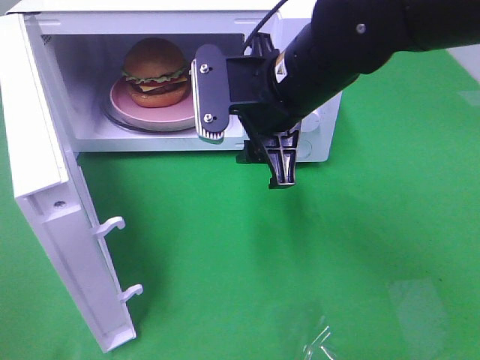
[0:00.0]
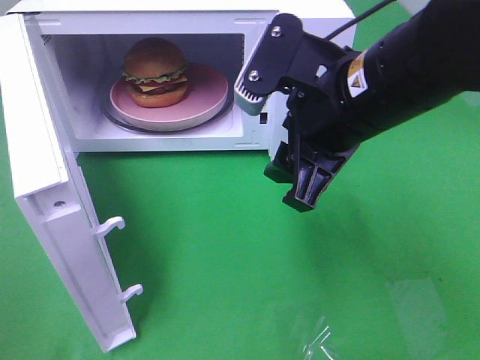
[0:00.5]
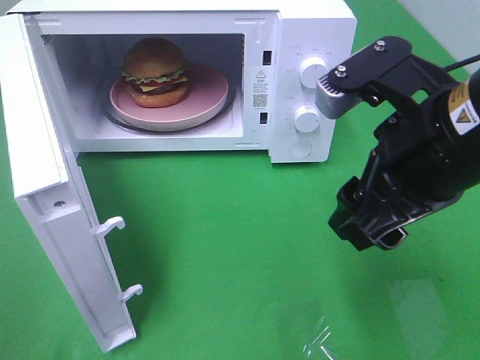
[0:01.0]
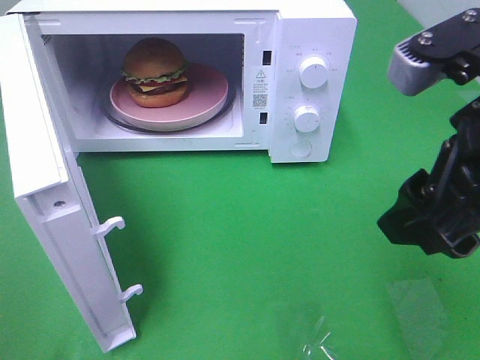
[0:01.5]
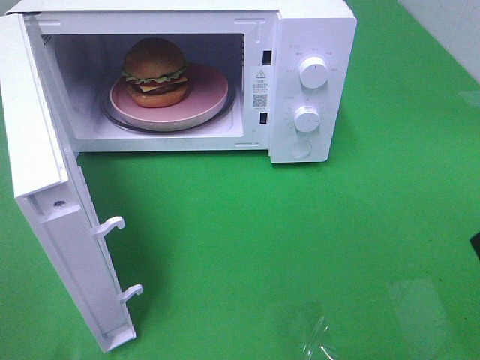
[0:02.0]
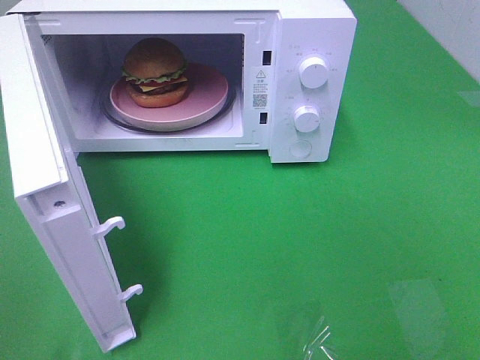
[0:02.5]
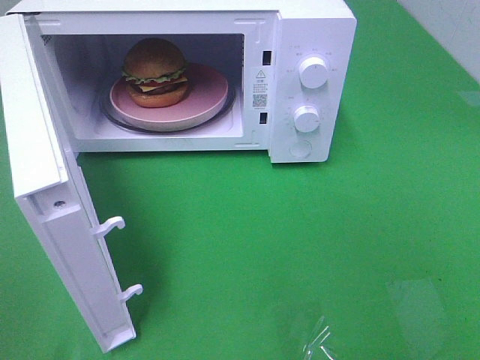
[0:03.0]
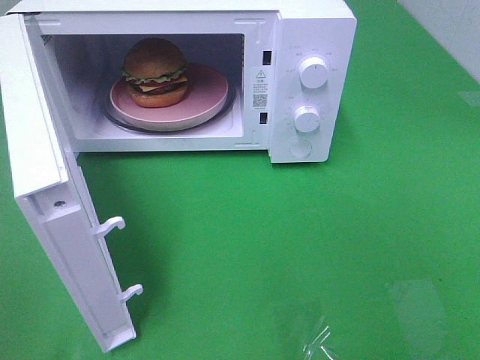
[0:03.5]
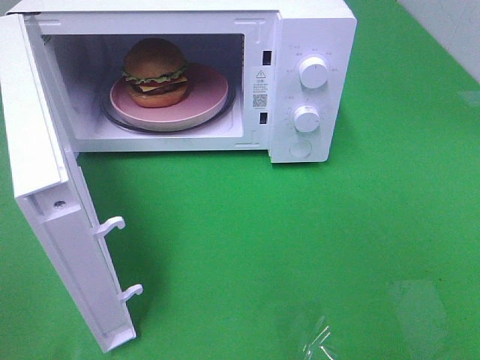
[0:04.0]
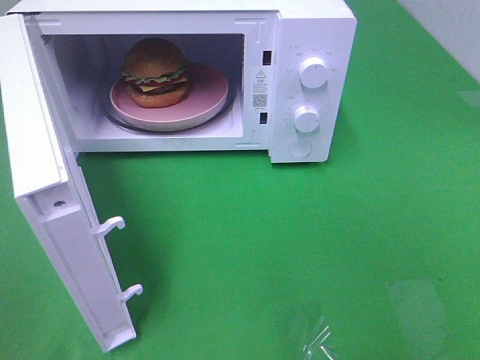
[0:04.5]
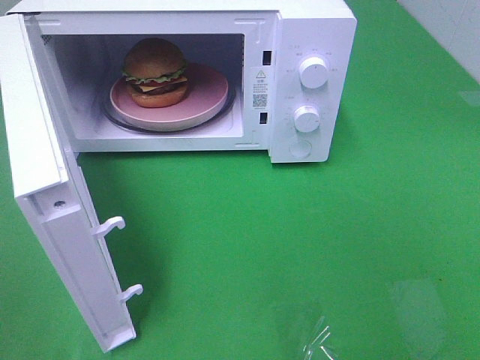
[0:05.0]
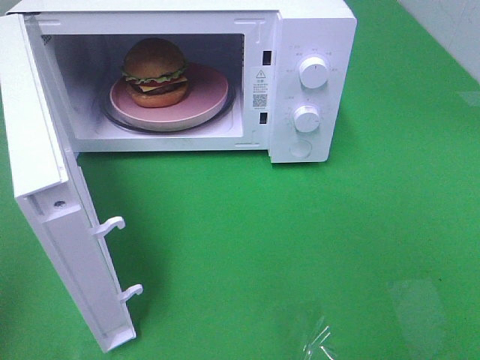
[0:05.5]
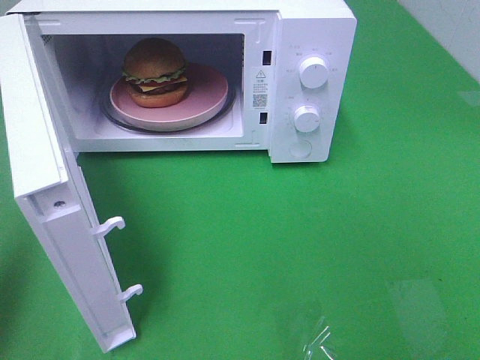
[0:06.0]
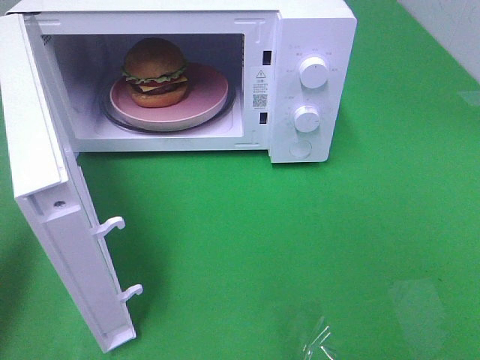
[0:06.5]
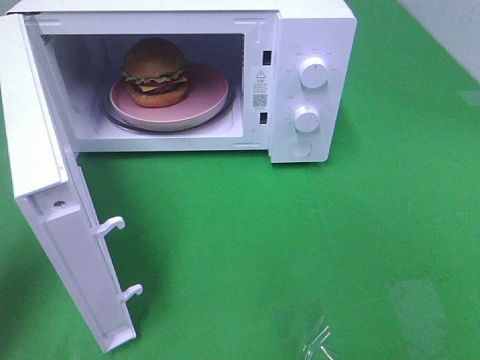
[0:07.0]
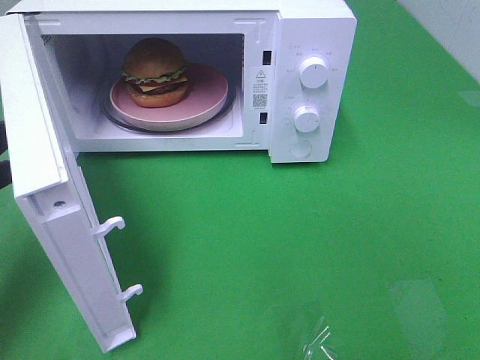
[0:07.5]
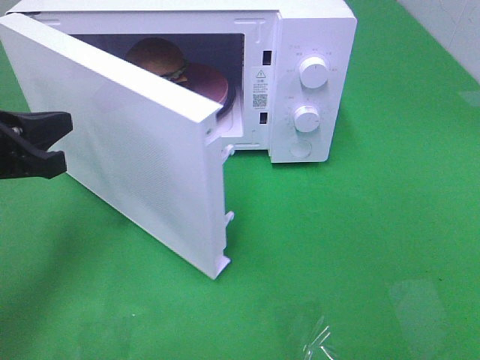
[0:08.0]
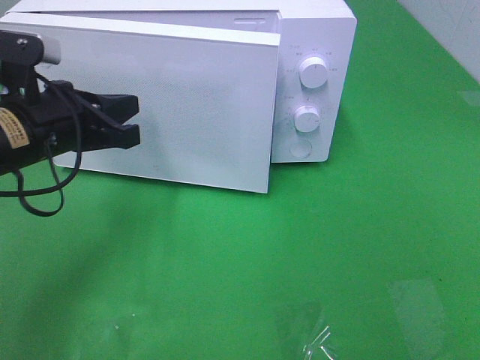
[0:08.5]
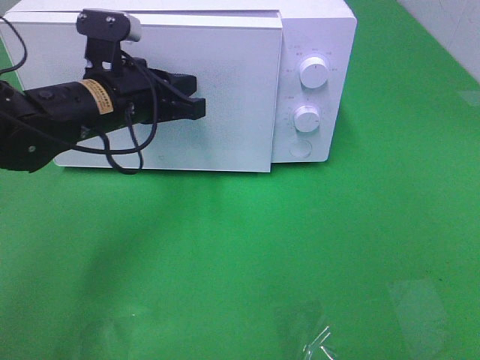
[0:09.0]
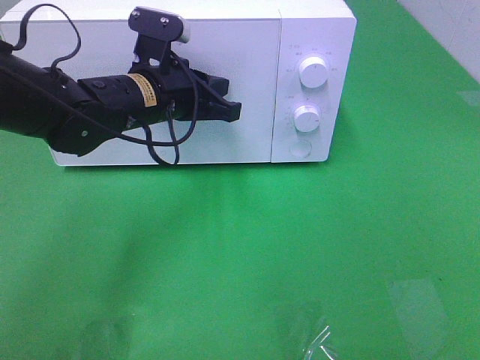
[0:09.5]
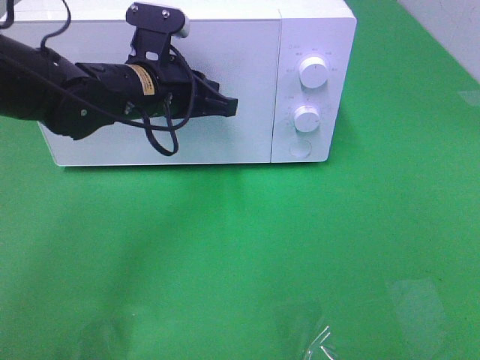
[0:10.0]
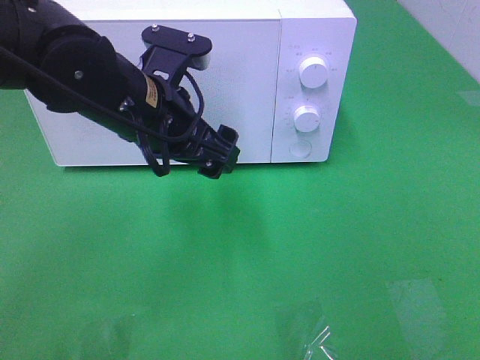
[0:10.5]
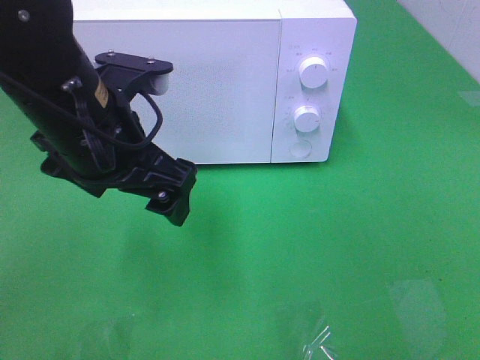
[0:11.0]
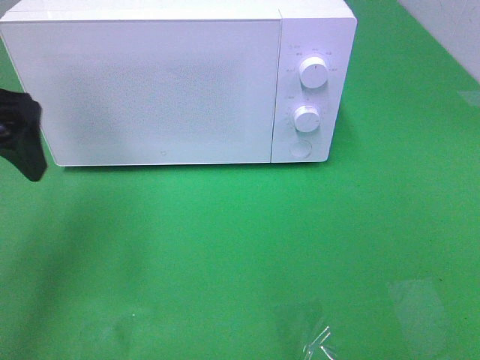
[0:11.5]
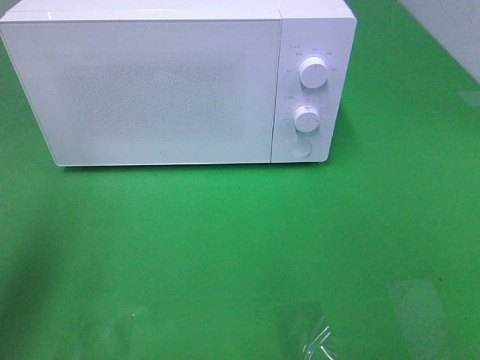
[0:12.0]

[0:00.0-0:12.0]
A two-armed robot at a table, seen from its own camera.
Task of the whole recording: Heat the burger.
Step, 0:00.0 to 0:10.0: Left hand: close the microwave door.
0:00.0 to 0:02.0: The right gripper moves to the right and backward, about 25 cm.
0:04.0 to 0:06.0: The left gripper moves forward, some 15 cm, and closes.
0:06.0 to 0:08.0: The left gripper shifts approximately 15 cm forward, downward and to the right.
0:08.0 to 0:10.0: The left gripper moves to the right and forward, about 20 cm.
0:10.0 to 0:12.0: The left gripper heads to the left, backward and upward, covering approximately 30 cm, and opens up.

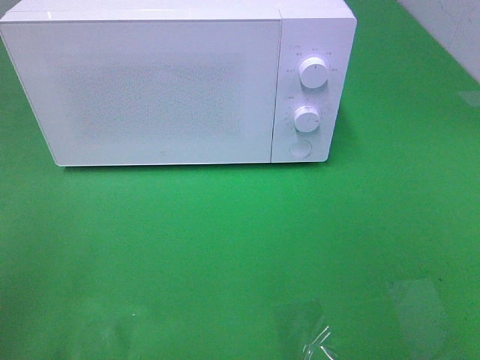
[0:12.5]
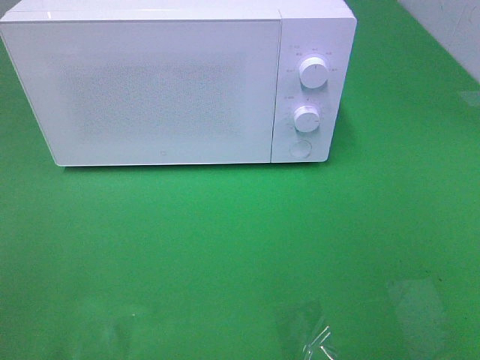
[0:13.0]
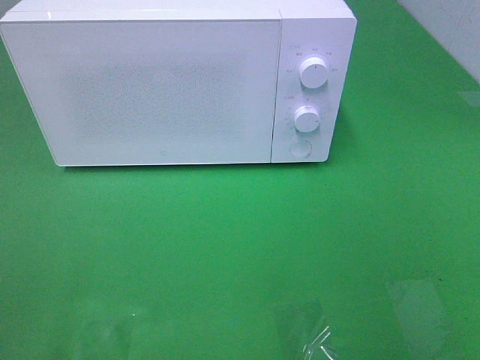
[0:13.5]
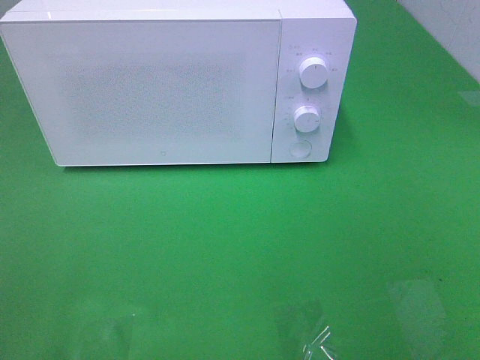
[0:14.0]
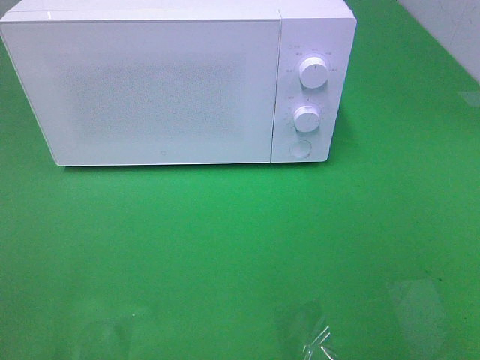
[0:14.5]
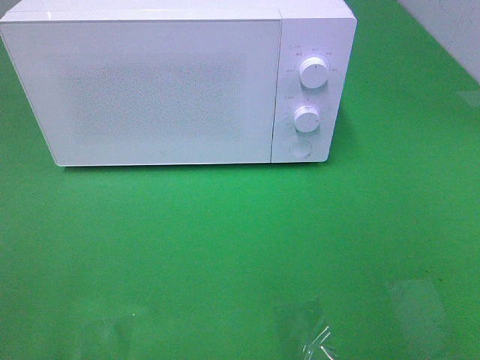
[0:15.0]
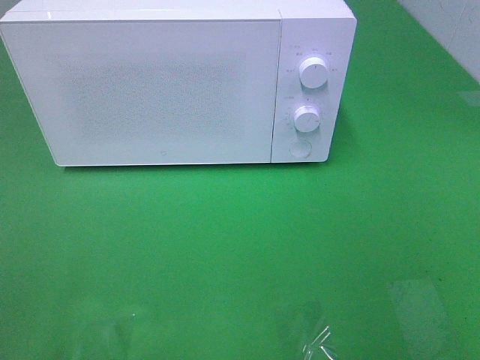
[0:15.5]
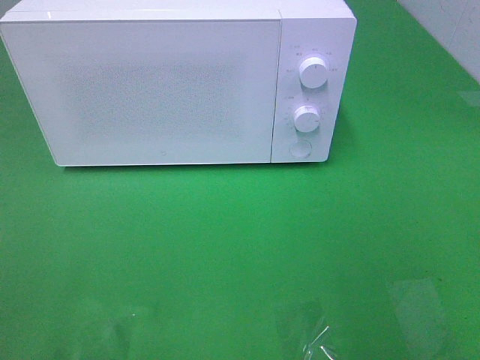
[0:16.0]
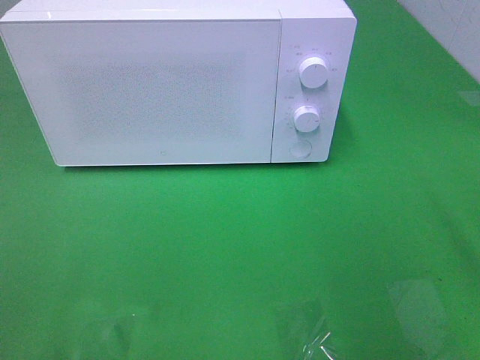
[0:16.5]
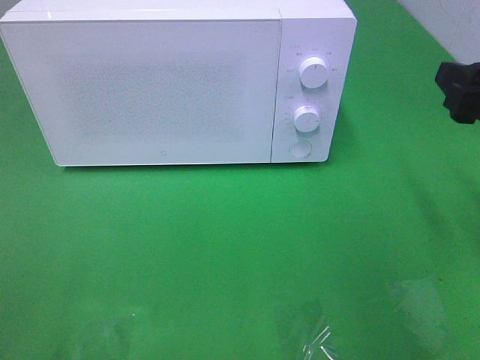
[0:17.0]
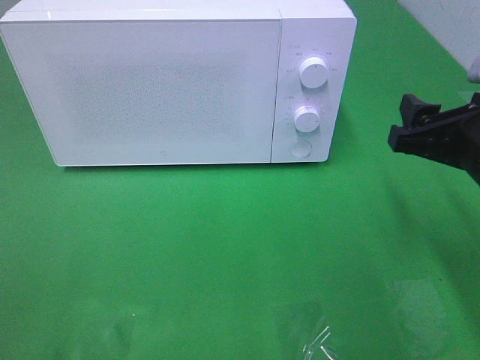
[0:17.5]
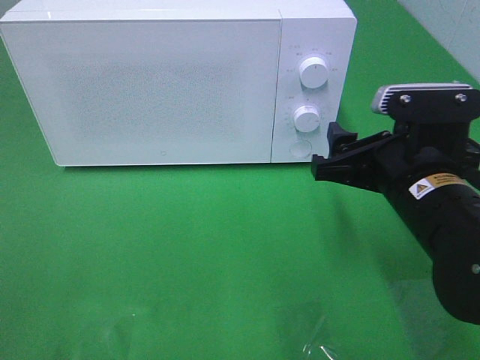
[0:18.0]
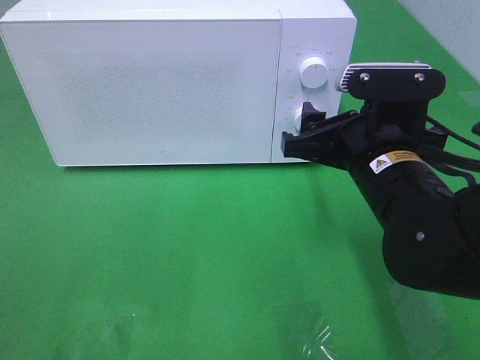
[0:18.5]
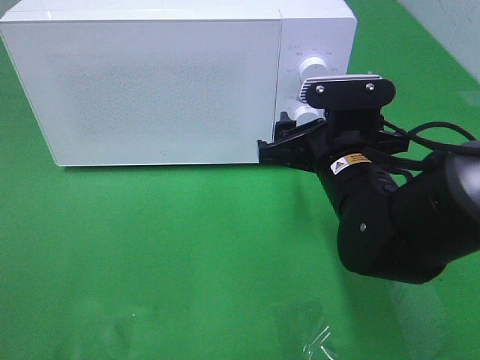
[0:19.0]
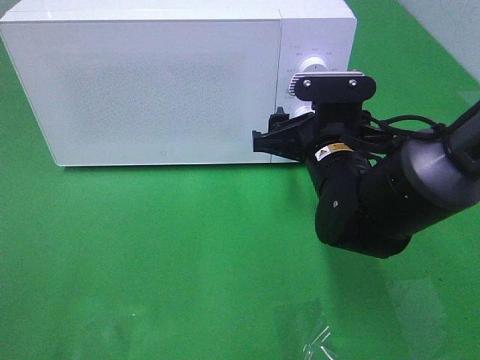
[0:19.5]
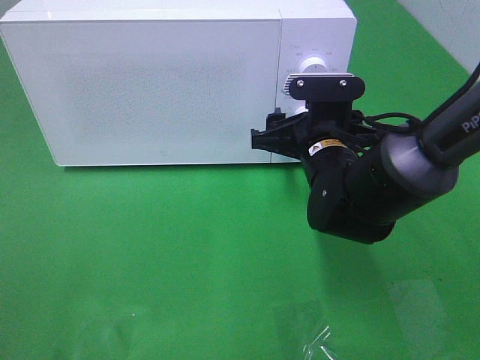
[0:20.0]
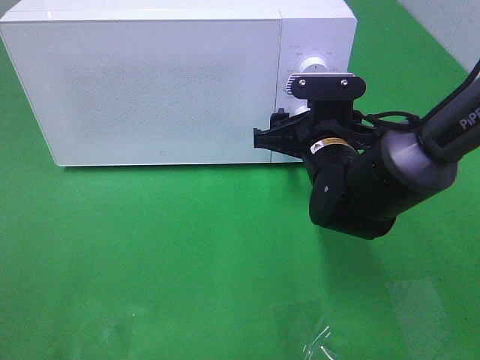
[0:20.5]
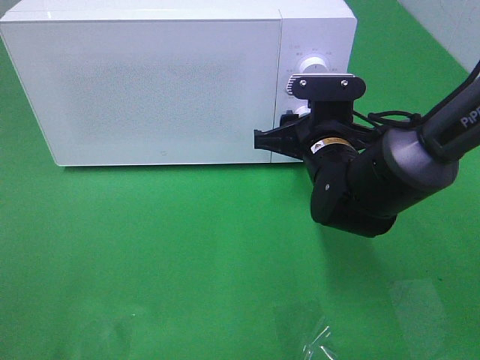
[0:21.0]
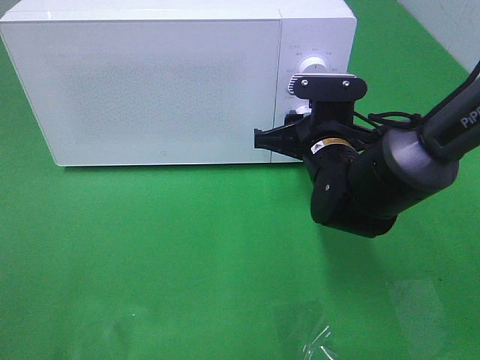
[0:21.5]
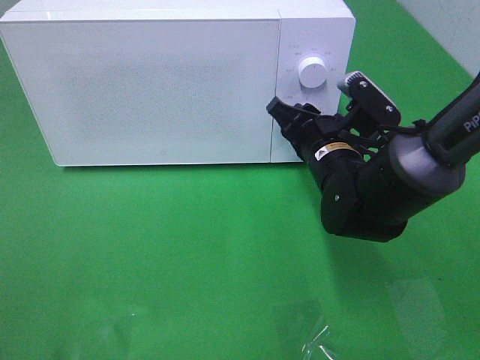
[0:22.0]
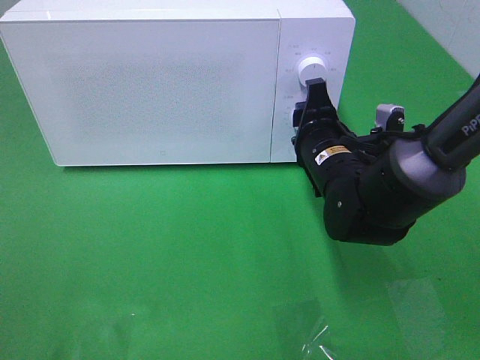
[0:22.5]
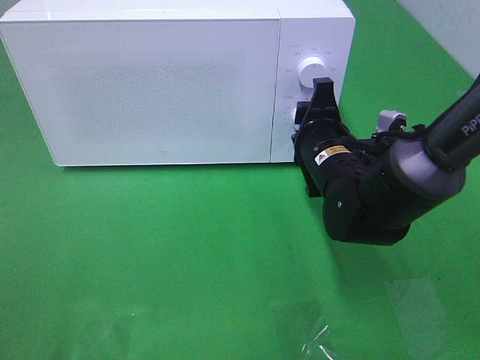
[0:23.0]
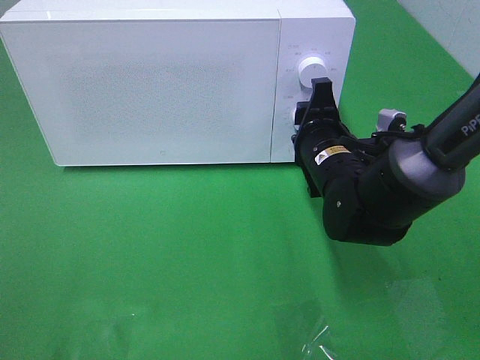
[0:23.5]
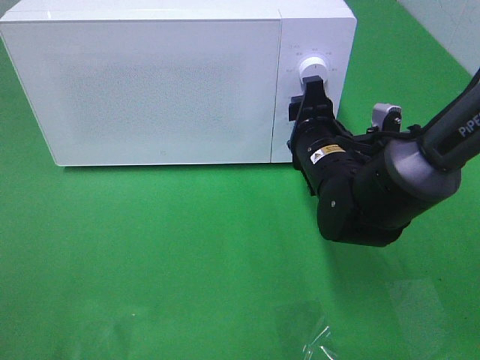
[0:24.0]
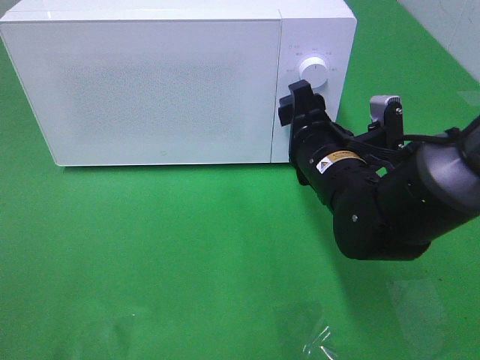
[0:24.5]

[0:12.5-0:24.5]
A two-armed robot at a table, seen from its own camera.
Task of the whole recording: Heat the burger.
Step, 0:12.5 to 0:24.0: Right hand: twist timer button.
0:16.5 to 0:18.5: The right gripper is displaced to the left, downward and forward by about 20 cm.
0:18.5 to 0:20.5: The right gripper is displaced forward and downward by approximately 10 cm.
0:22.5 to 0:24.5: The grippers make only small movements.

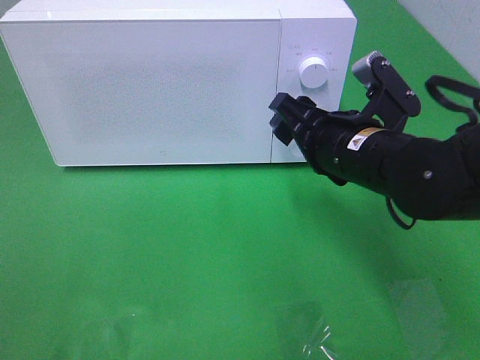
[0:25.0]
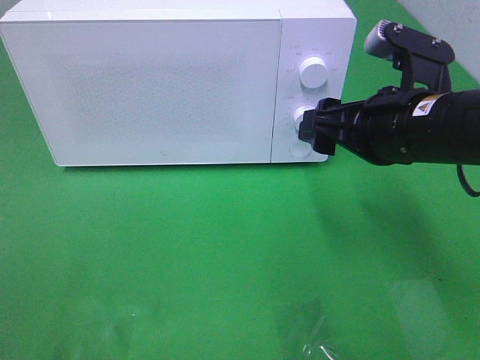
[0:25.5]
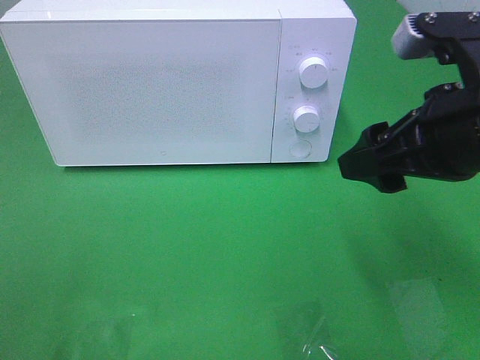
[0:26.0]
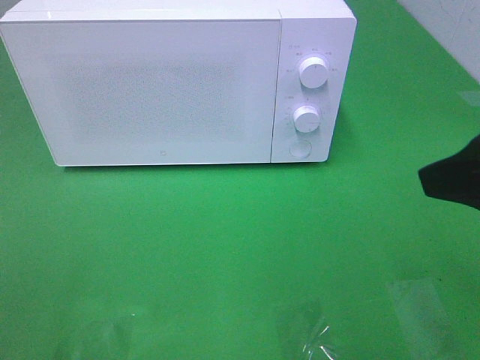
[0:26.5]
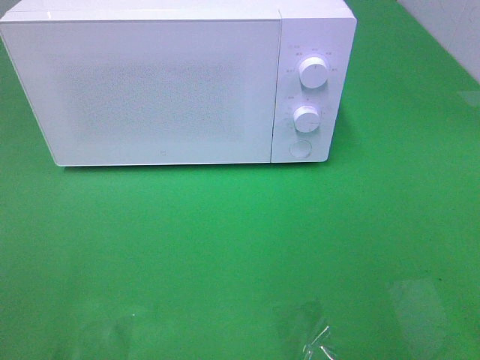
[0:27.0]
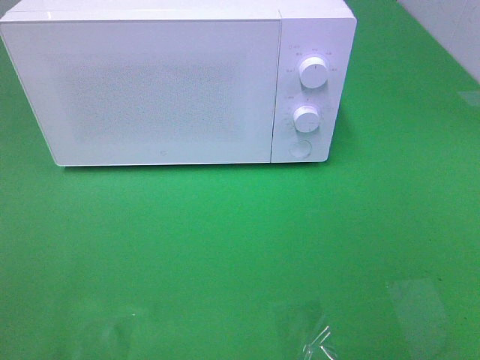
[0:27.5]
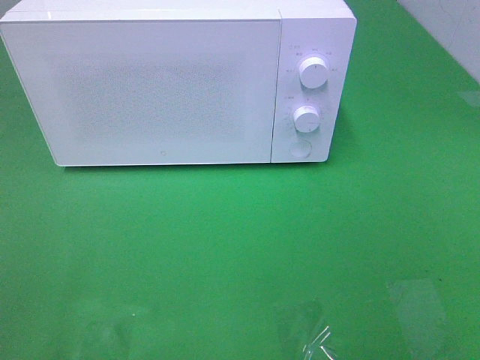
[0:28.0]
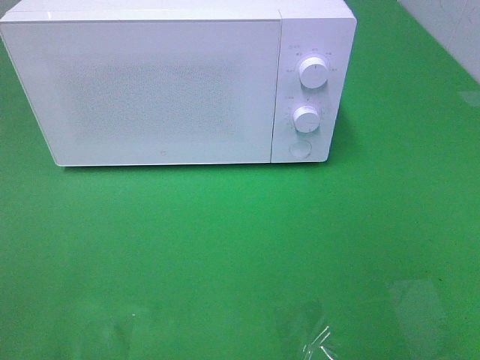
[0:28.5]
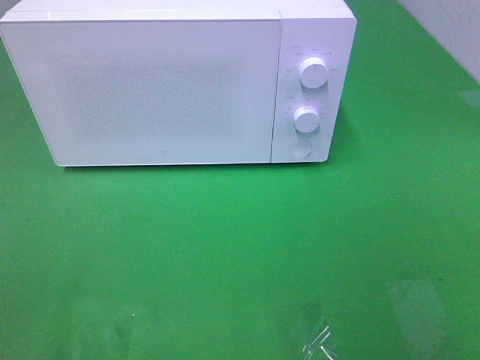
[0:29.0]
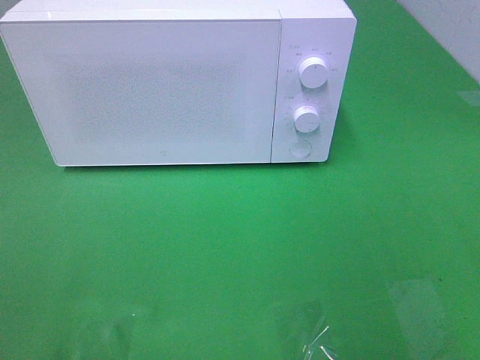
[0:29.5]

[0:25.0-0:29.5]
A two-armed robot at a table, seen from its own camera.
Task of the whole recording: Heat the burger.
0:25.0 to 0:27.0: The right gripper heads backward, upward and to the right, covering about 30 cm.
